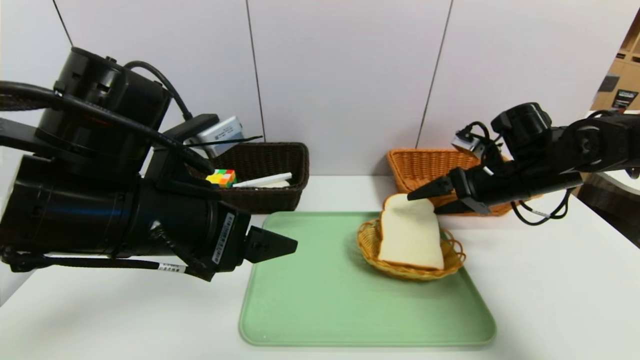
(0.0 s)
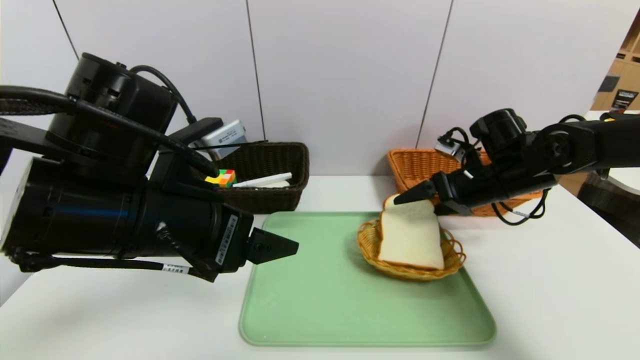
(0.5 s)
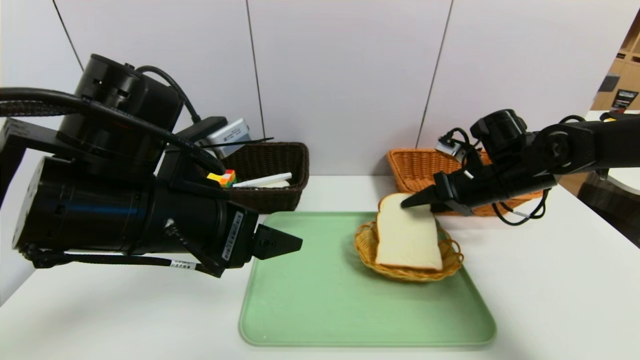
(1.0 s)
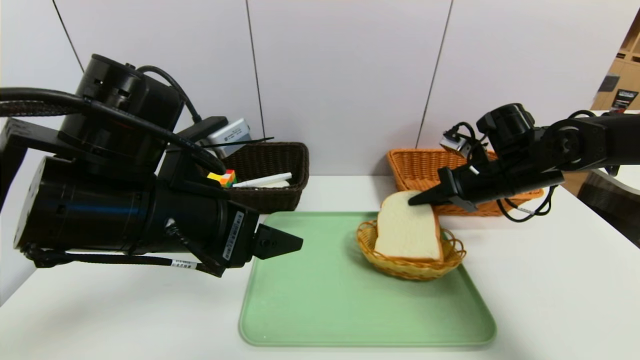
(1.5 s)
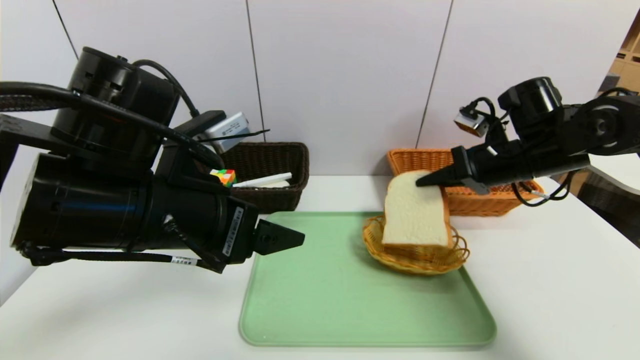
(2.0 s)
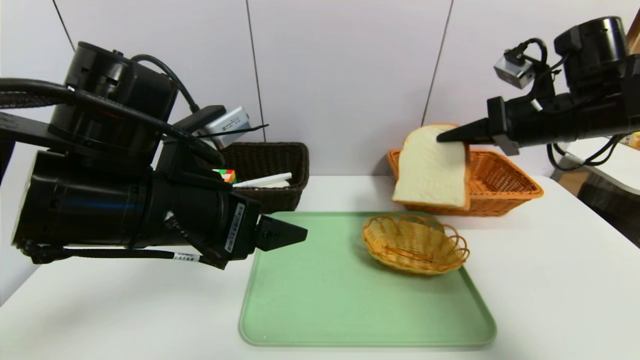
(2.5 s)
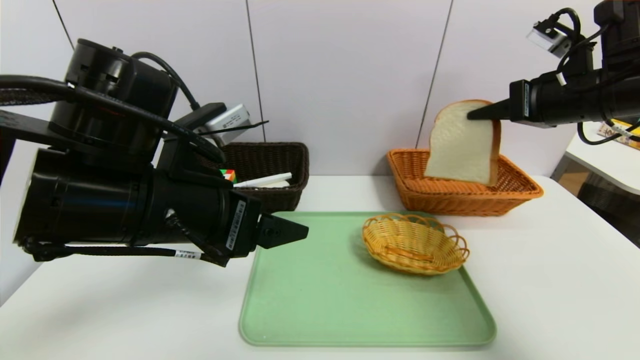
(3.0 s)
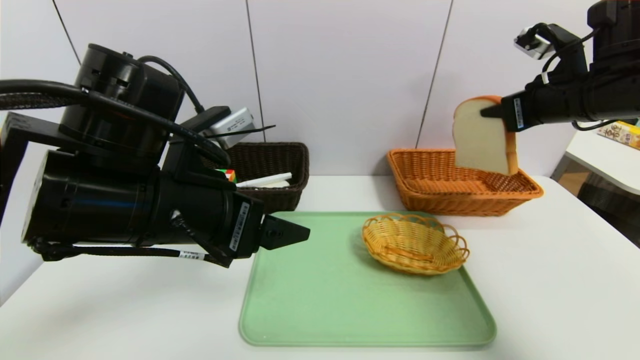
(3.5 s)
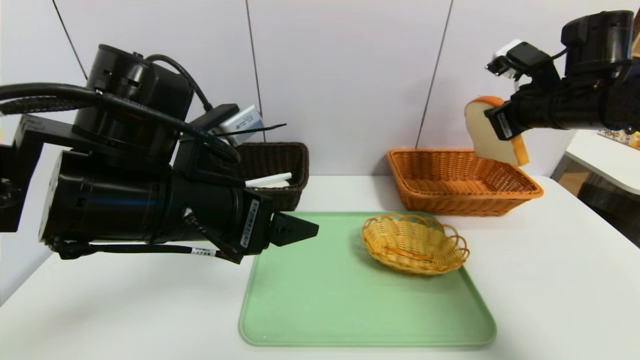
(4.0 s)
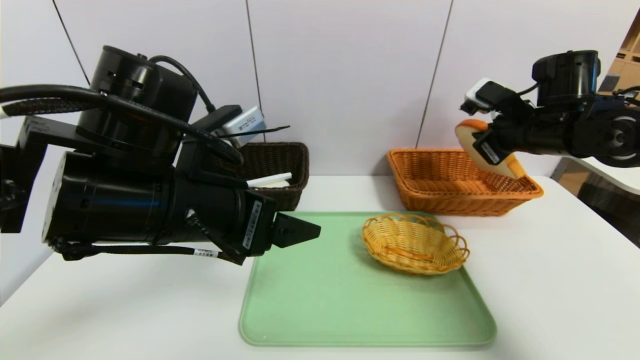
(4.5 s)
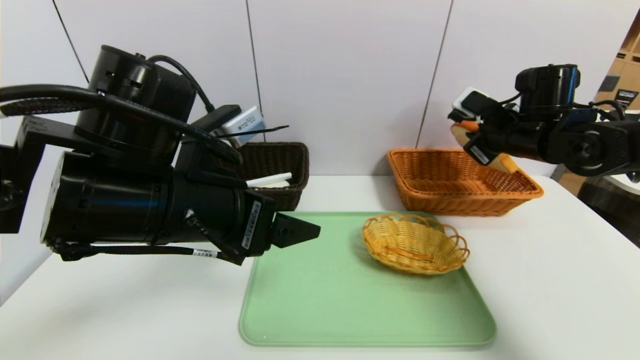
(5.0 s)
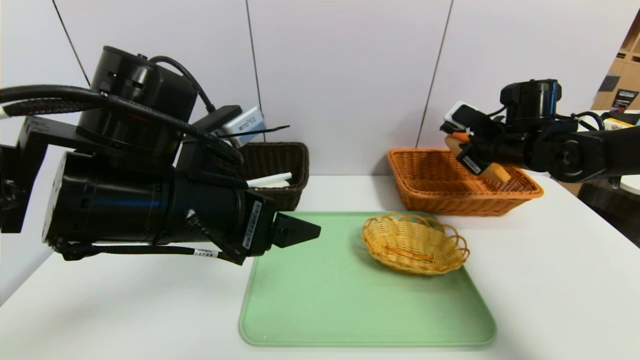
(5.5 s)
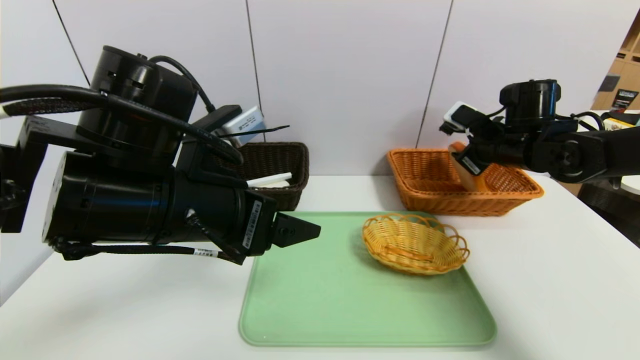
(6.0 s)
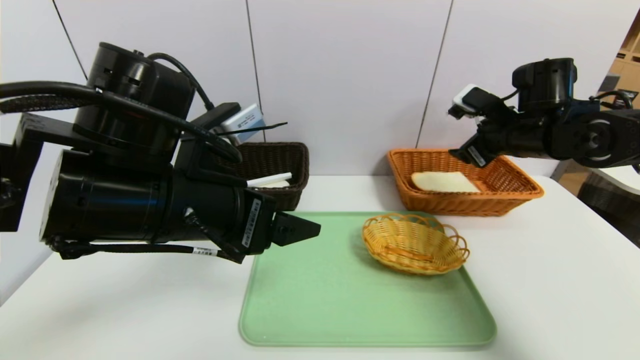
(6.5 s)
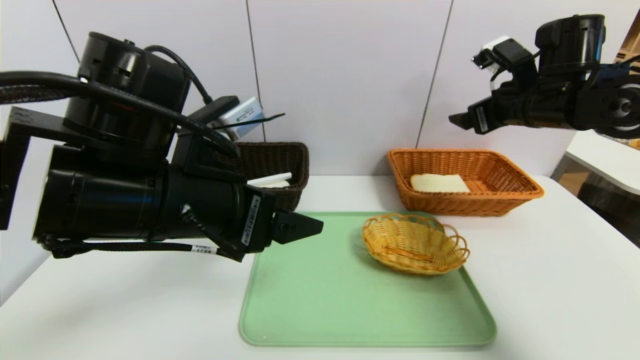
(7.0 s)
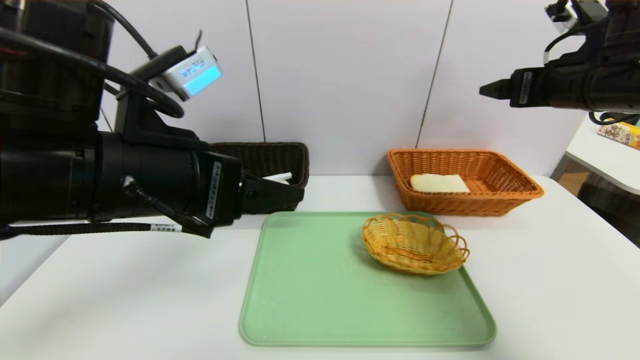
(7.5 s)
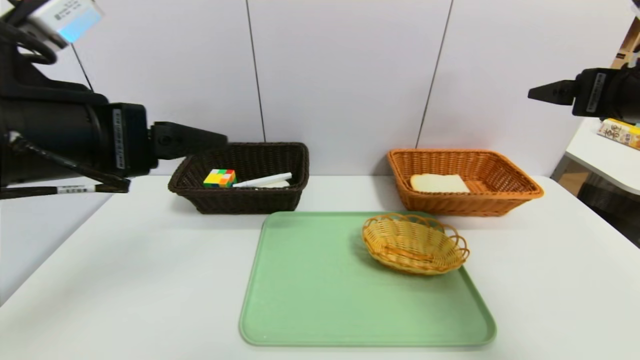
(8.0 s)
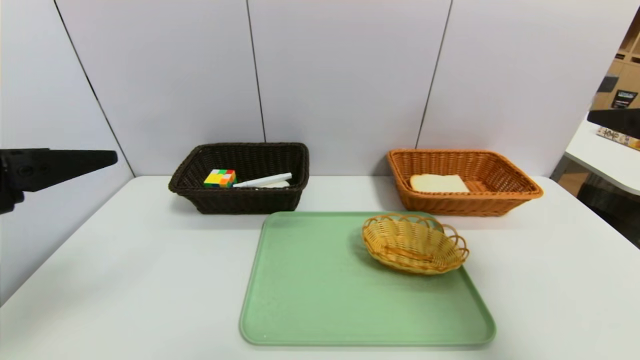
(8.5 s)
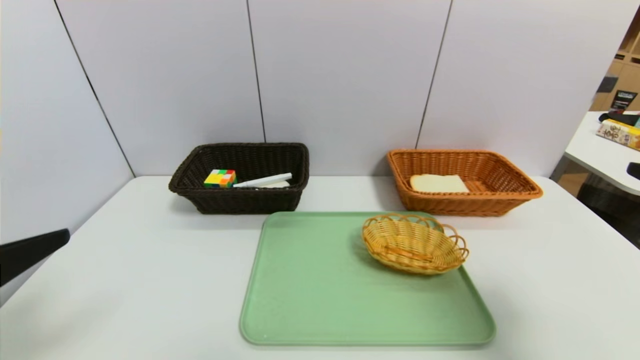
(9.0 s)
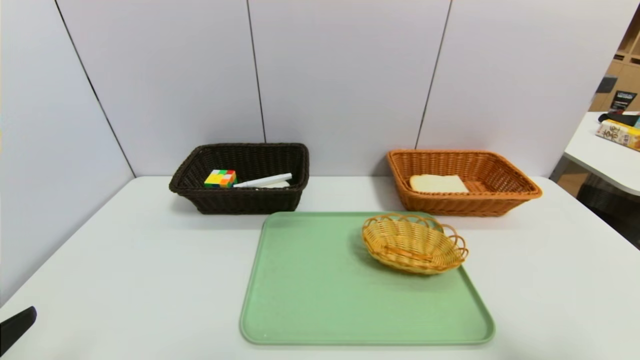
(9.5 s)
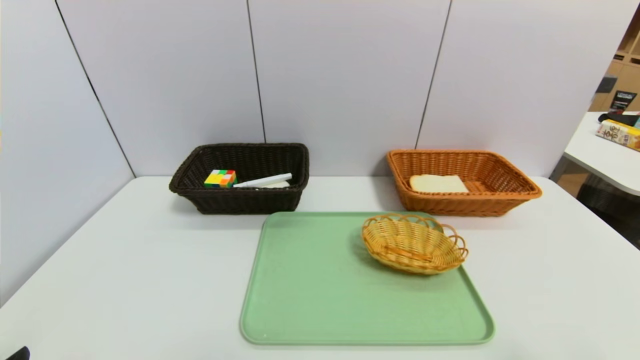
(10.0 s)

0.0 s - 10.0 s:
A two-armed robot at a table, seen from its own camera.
Task of the whole recording: place the food in the right basket with the right gripper, and place the non food items in the left basket with the left gripper.
Step, 0.0 s - 7.0 s: Grasp the bread slice and put it in the right basket.
0.0 s - 2.0 s: The right gripper closes.
2.0 s - 4.0 s: The right gripper heads upward, covering roughly 5 cm.
4.0 s - 6.0 s: The right gripper goes roughly 10 cm downward, and opens.
6.0 s - 8.0 s: The right gripper is displaced backward and upward by about 20 cm, and opens, while the left gripper travels to the left and upward by approximately 10 cm.
8.0 s - 10.0 s: The left gripper heads backward, downward and to the left, covering some 25 cm. Meanwhile the right gripper goes roughly 25 cm backward and downward.

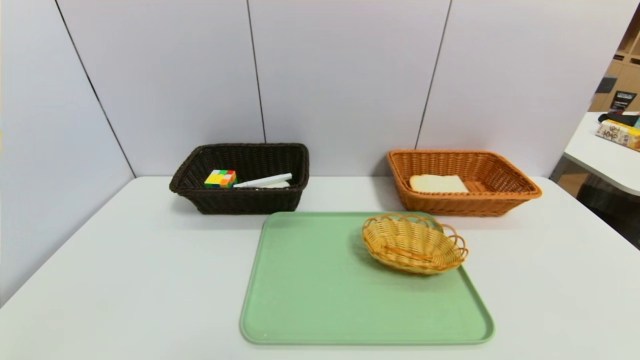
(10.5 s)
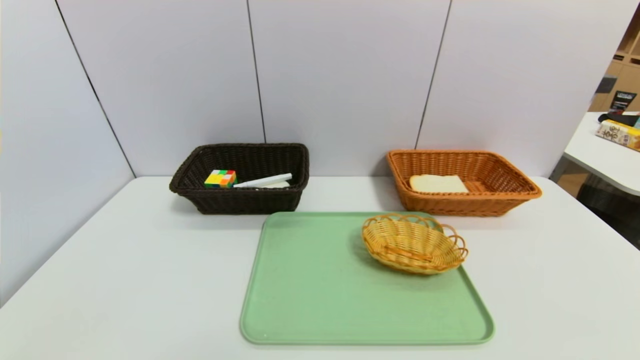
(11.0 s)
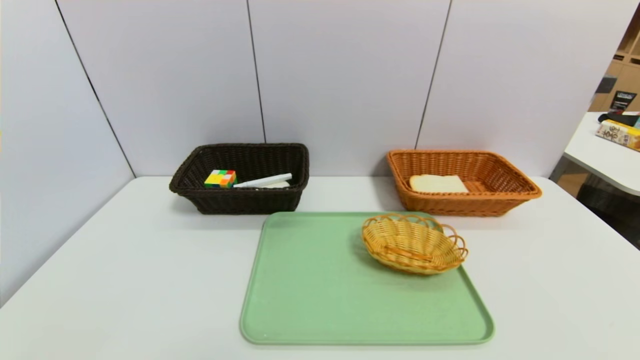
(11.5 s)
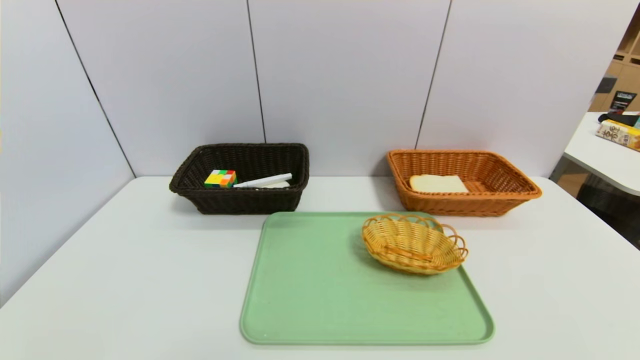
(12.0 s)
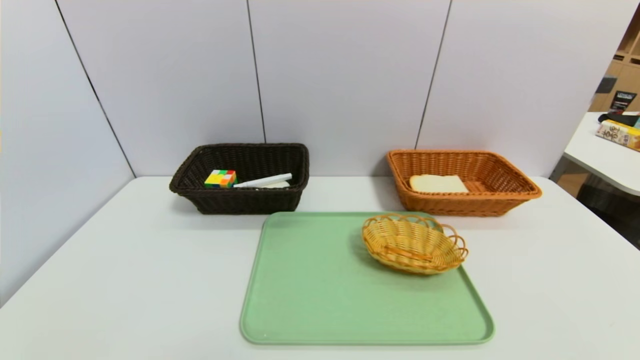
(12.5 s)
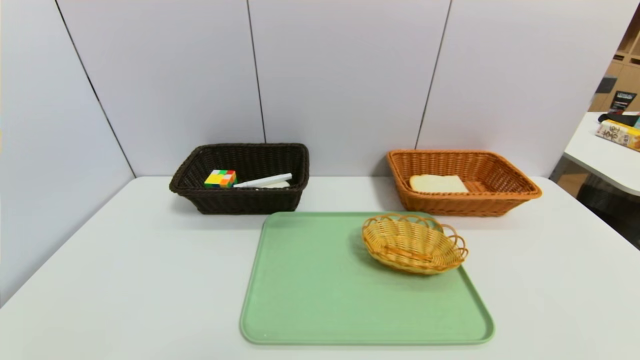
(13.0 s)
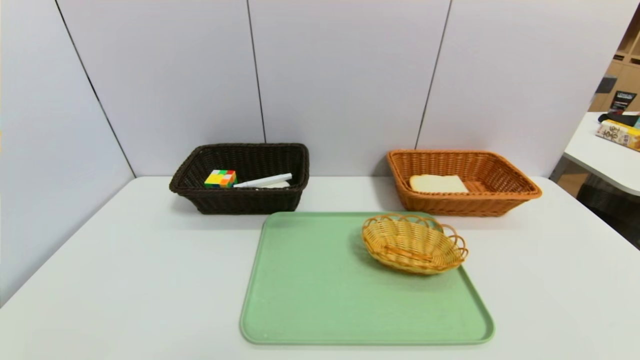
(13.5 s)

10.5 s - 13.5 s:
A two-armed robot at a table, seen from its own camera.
Task of the whole recording: place the food in the right basket with the right gripper, and place the non food items in the left basket with the left gripper.
12.0 s - 13.5 s: Both grippers stay put.

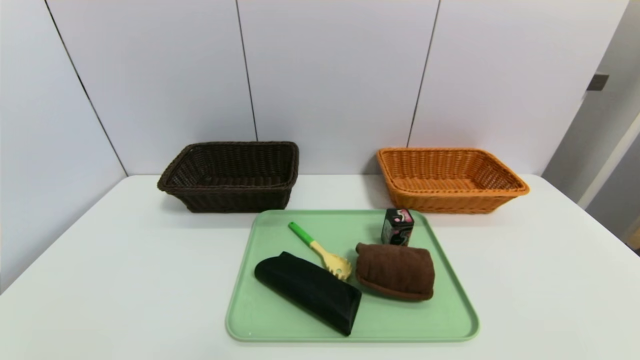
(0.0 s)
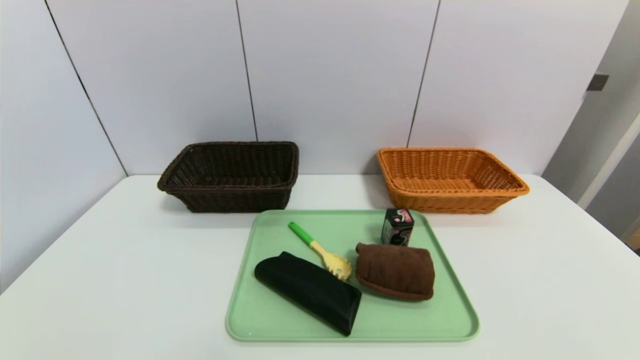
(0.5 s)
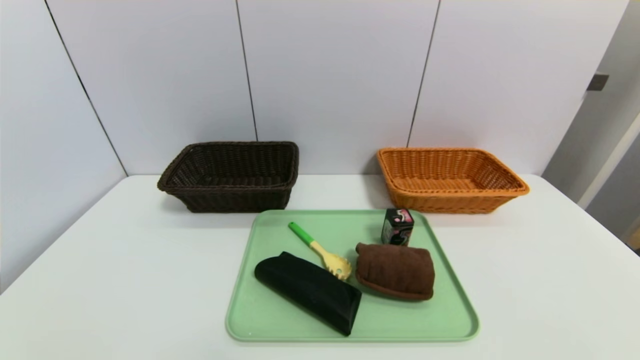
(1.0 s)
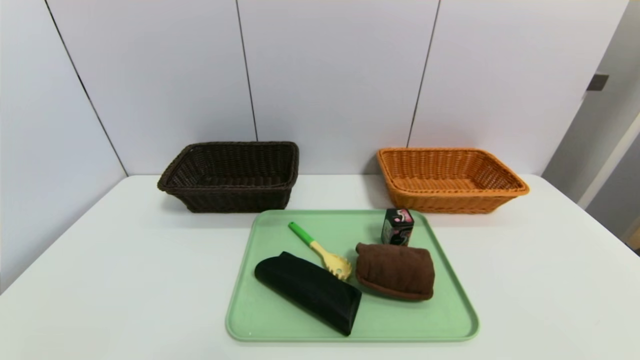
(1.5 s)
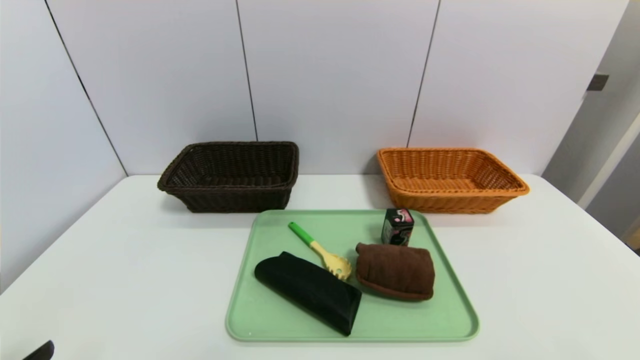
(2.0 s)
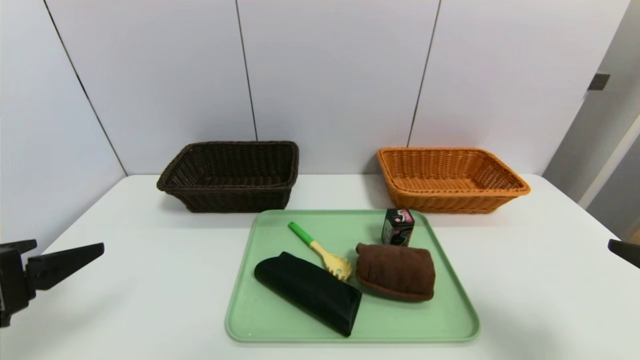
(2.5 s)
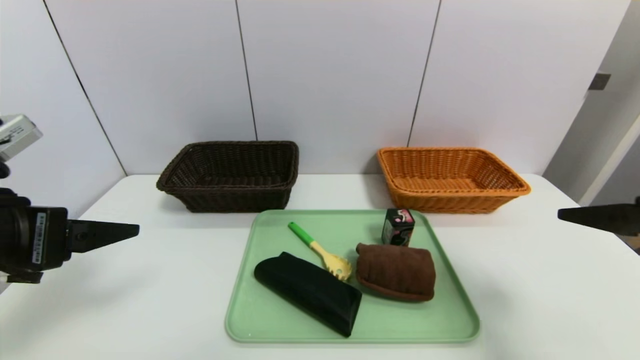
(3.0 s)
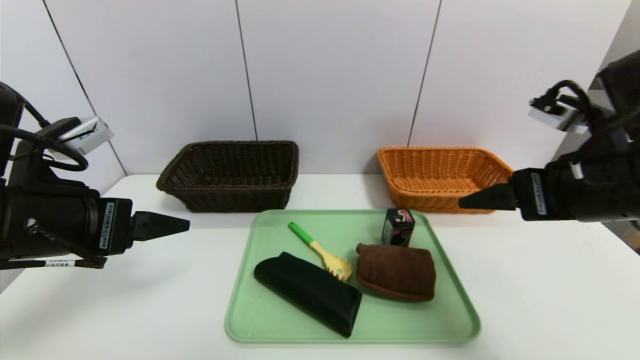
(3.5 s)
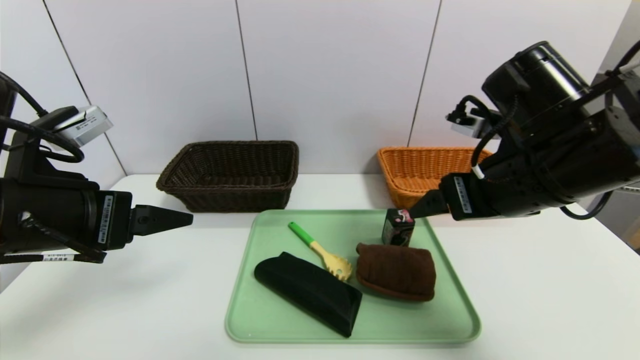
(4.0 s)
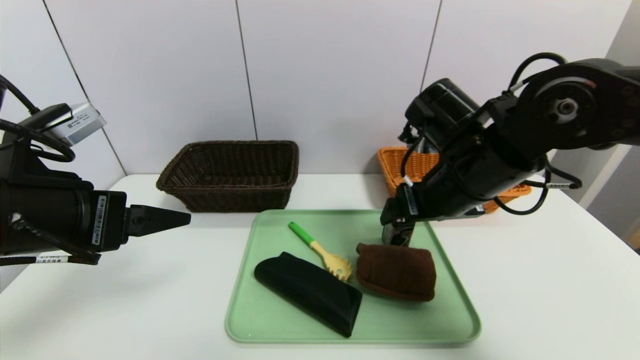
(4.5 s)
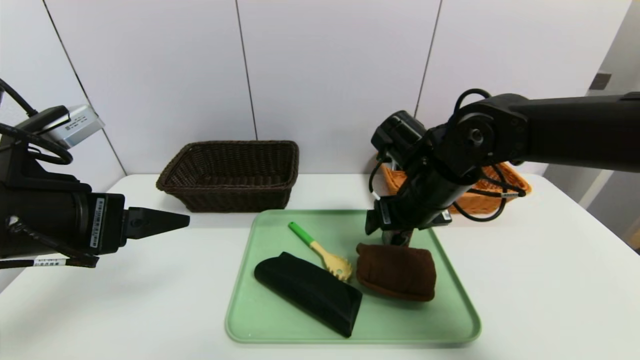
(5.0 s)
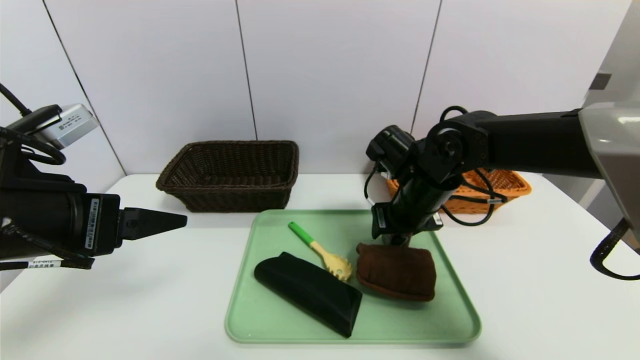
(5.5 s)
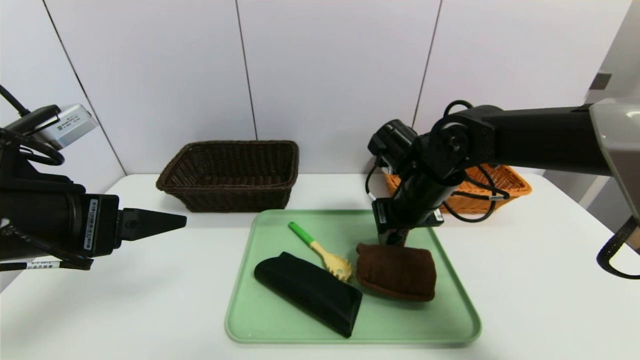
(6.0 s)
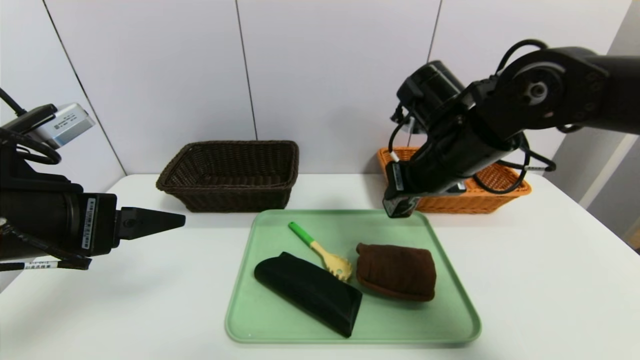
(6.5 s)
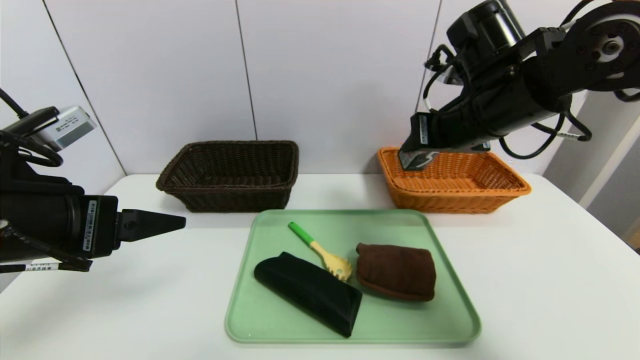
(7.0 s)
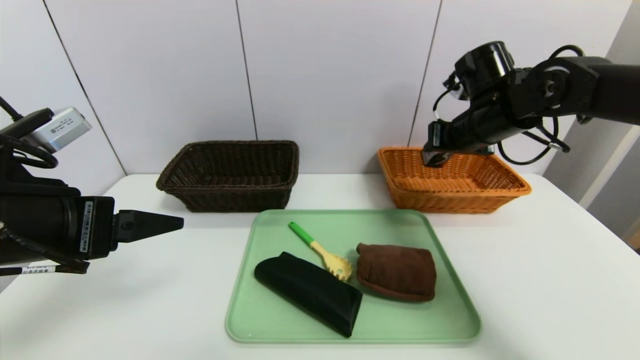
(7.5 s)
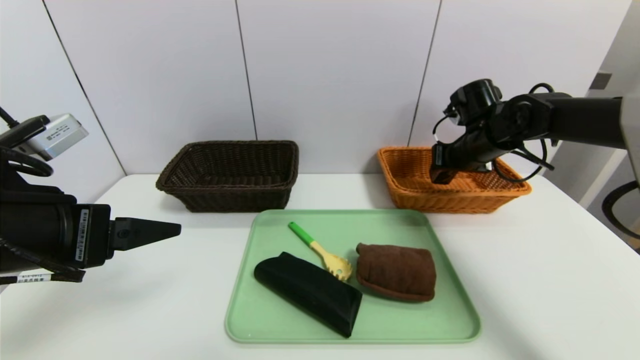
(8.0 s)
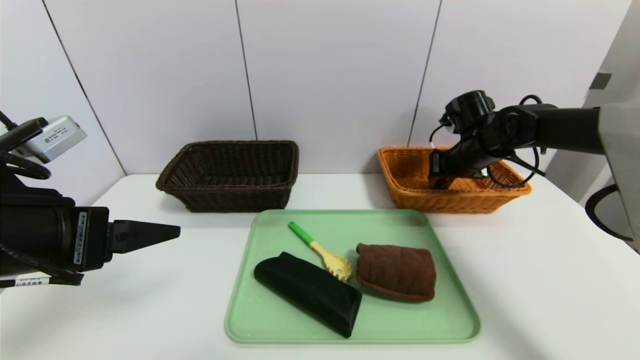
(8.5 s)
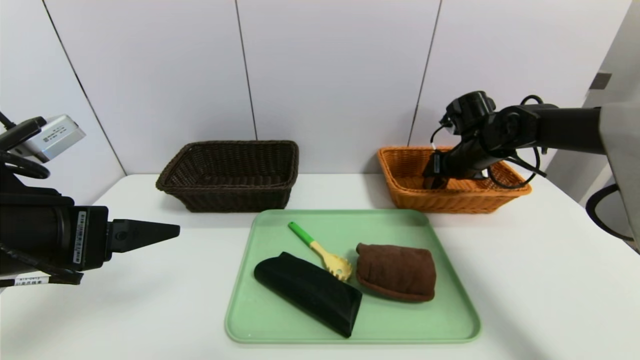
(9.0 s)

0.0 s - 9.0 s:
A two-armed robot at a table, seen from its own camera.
Task of the whole recording: place the food in the right basket with the right gripper, and place the non food items in the left basket with the left gripper.
2.0 s - 4.5 s: The right gripper shifts approximately 35 cm forward and to the left. The left gripper moves forward and upward, some 20 cm.
4.5 s - 7.0 s: The right gripper is displaced upward by about 5 cm, and closes.
7.0 s - 9.0 s: The right gripper goes approximately 20 cm forward, downward and to the right, and opens its fingers.
